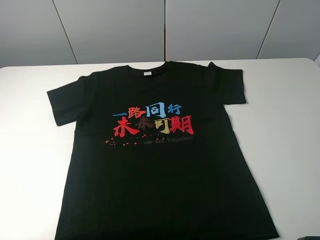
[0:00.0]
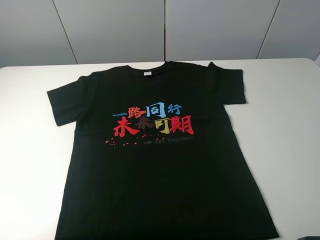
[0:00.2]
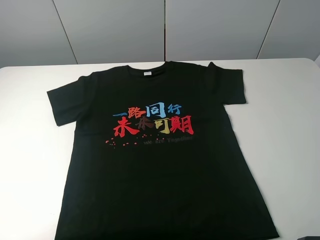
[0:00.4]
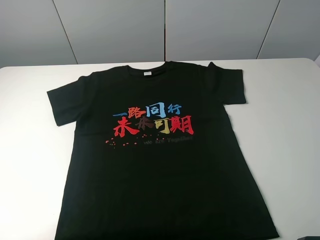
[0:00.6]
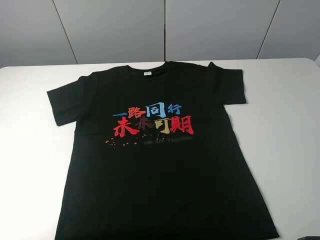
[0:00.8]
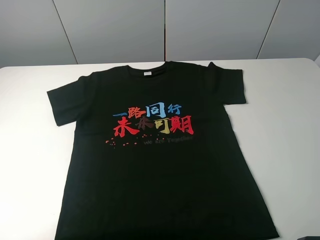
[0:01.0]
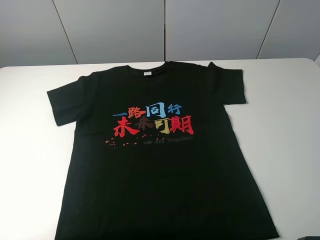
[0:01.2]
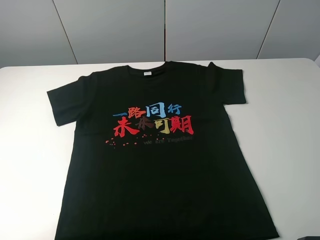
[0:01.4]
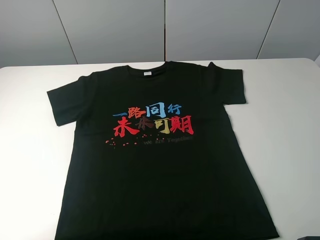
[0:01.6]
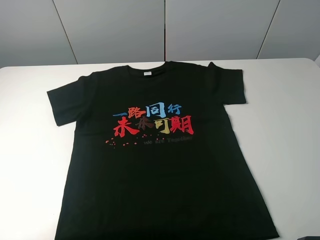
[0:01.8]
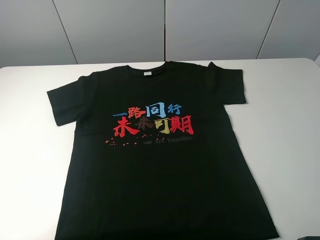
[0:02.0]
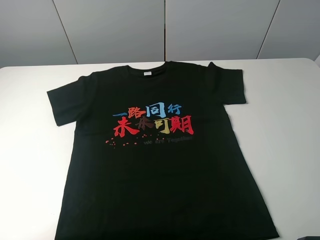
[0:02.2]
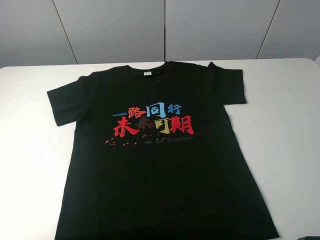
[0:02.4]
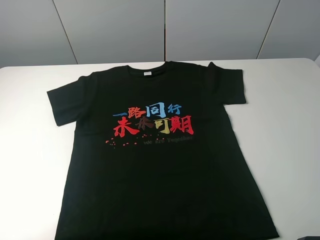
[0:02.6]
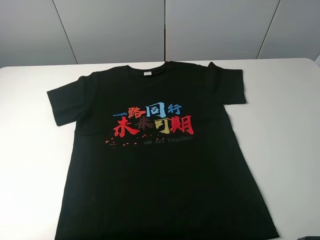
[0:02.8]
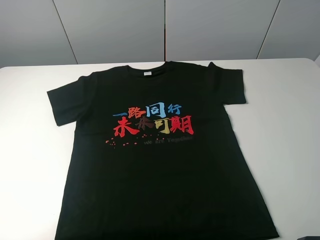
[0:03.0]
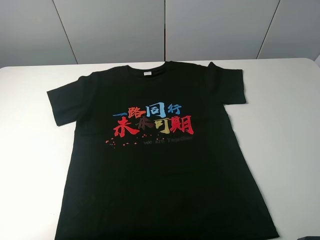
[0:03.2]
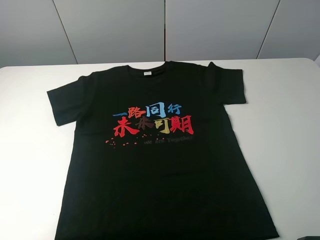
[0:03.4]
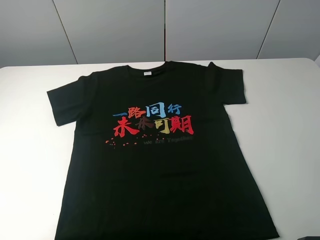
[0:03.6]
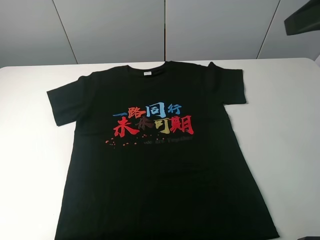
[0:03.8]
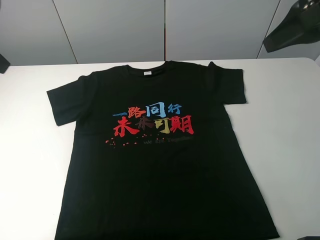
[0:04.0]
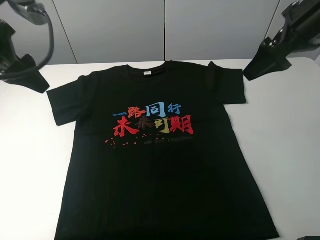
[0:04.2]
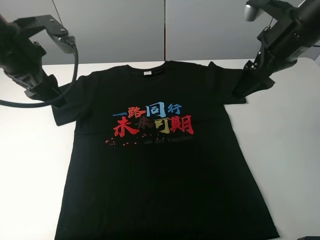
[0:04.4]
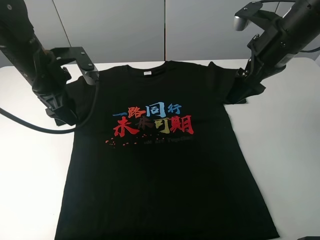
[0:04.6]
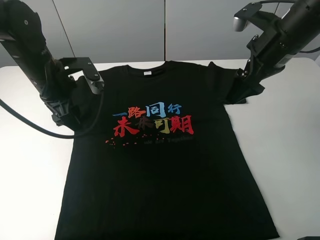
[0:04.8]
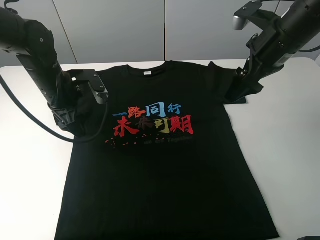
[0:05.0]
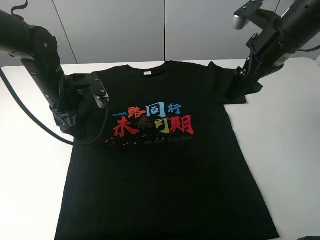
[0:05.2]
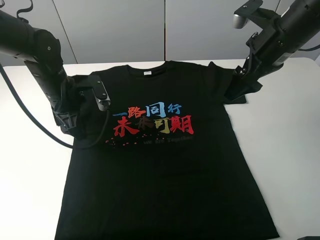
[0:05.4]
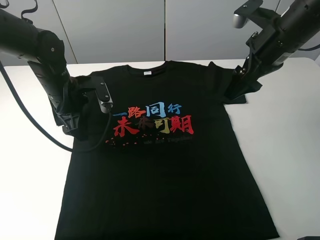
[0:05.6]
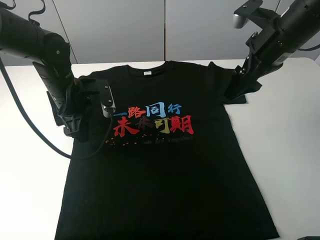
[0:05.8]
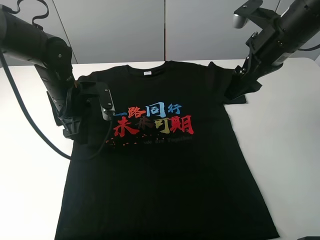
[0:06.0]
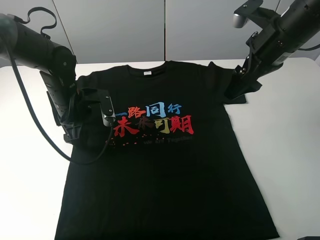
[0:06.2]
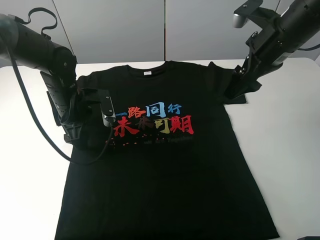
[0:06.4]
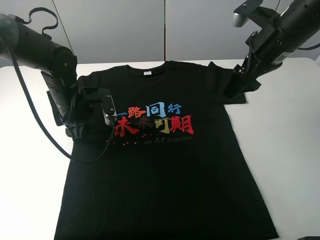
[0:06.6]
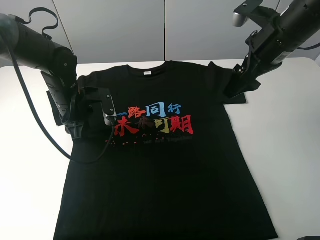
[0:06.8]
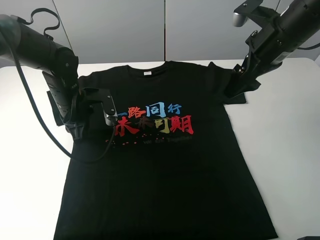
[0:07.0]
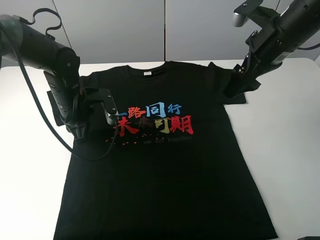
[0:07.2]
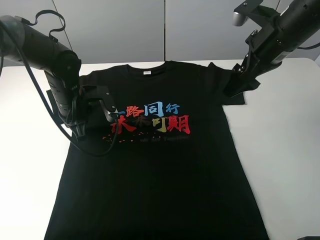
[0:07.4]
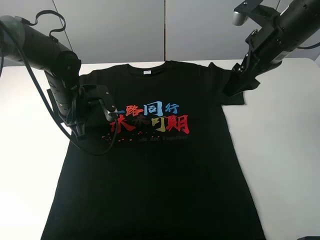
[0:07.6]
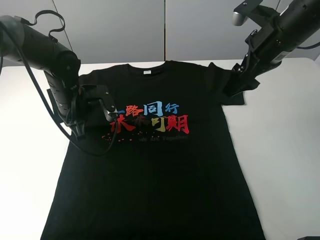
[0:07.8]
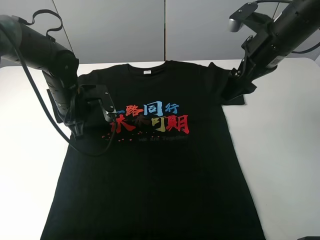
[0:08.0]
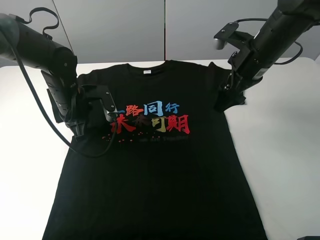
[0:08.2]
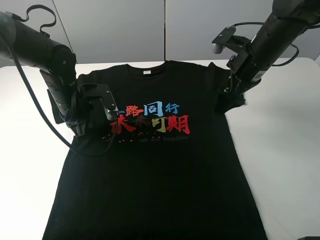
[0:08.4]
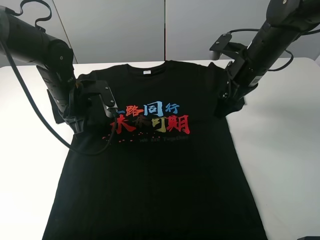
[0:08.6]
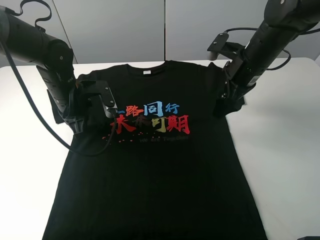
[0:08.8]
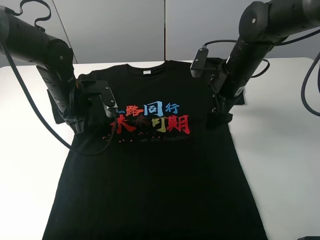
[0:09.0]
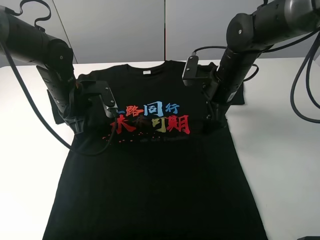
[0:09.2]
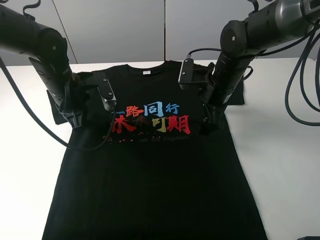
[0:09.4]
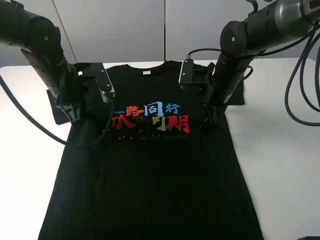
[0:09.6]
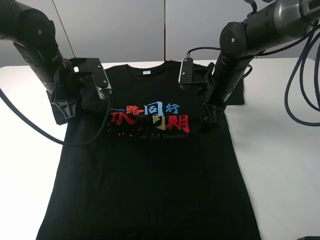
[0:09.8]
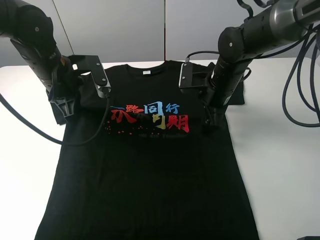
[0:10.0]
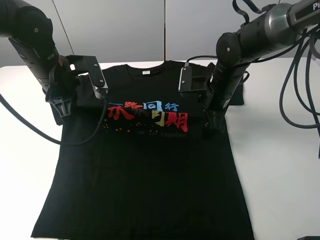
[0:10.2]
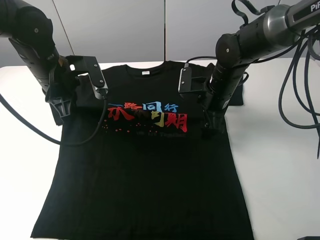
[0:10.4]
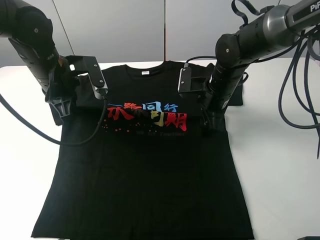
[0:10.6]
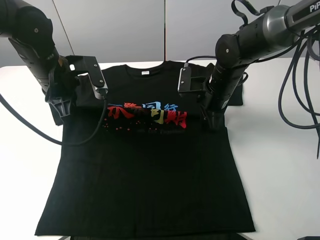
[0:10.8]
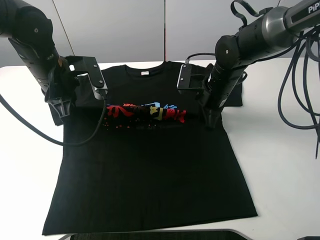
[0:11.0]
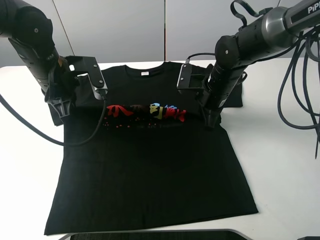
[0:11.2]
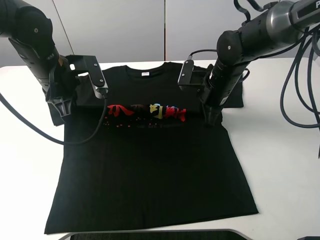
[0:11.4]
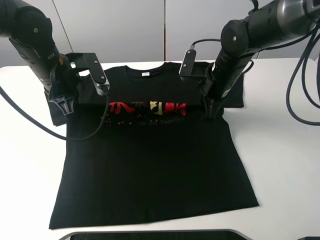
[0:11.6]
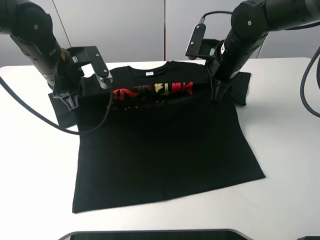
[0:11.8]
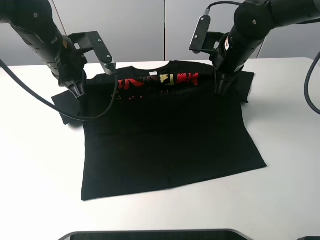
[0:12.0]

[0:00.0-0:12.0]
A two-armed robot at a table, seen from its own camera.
Task of the whole recording: fold the clothes on the table.
Step, 0:00.0 to 0:10.4: Lift the black T-shirt with the left gripper.
0:00.0 to 0:03.0: Neither gripper changes place.
0:03.0 to 0:04.4: The left gripper shifts approximately 30 cm forward and to the right, while the right gripper goes approximately 30 cm forward.
0:04.4 to 0:06.0: The left gripper travels downward by roughly 15 cm.
0:06.0 to 0:07.6: The left gripper closes.
0:07.6 to 0:09.0: The right gripper heads downward and to the left, covering some 10 cm.
0:09.0 to 0:10.4: The left gripper goes approximately 5 cm upward.
0:10.4 to 0:12.0: The right gripper goes roughly 10 cm upward, and closes up.

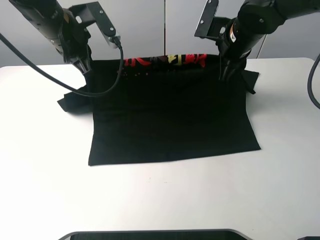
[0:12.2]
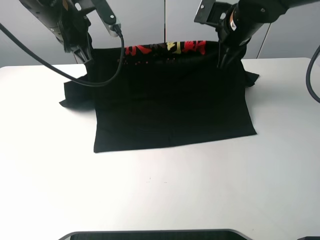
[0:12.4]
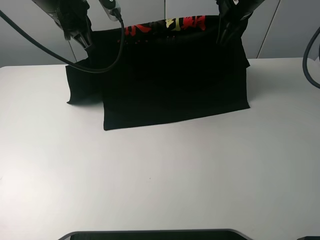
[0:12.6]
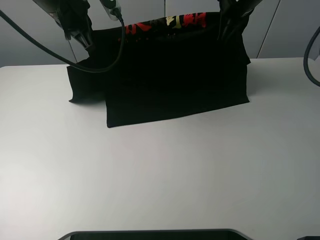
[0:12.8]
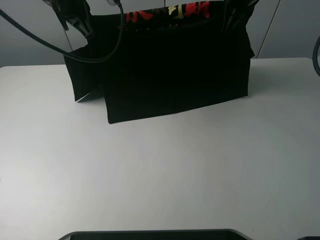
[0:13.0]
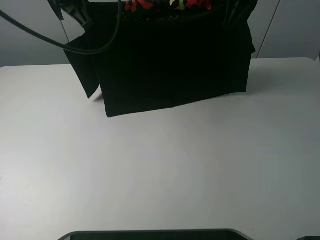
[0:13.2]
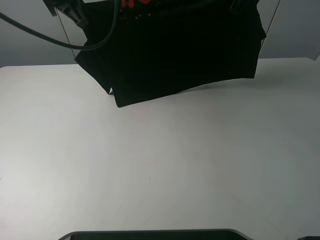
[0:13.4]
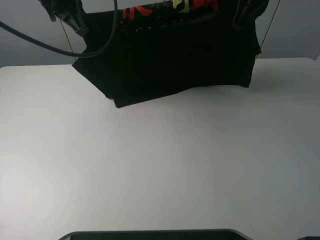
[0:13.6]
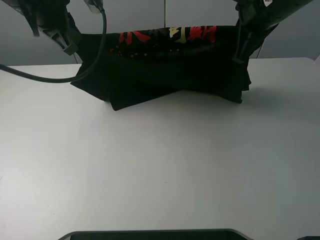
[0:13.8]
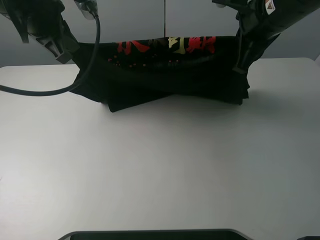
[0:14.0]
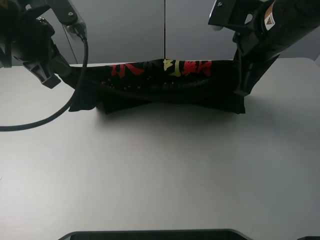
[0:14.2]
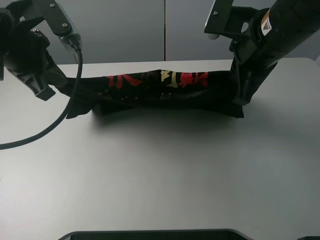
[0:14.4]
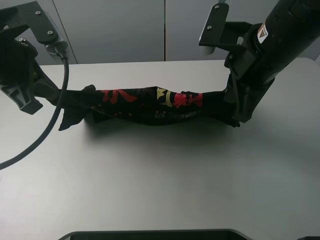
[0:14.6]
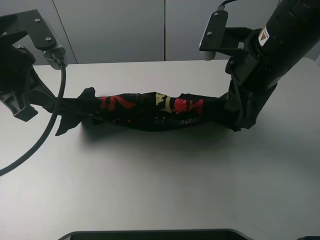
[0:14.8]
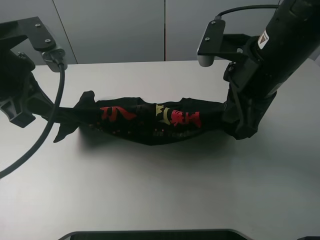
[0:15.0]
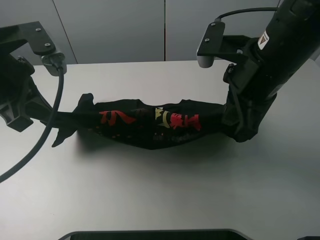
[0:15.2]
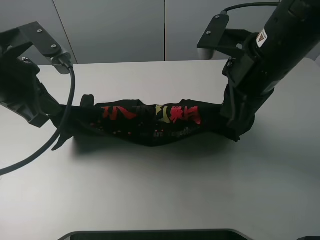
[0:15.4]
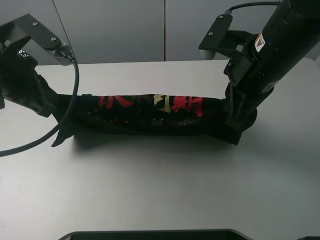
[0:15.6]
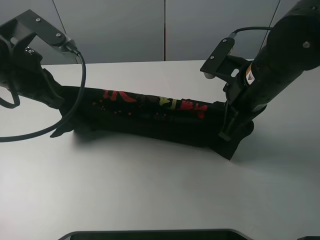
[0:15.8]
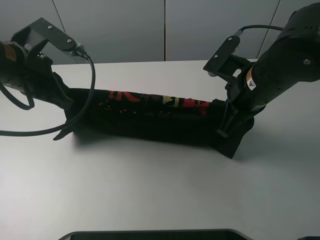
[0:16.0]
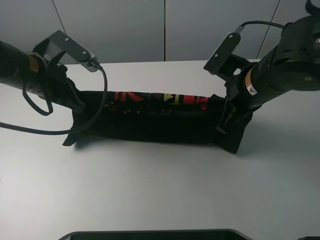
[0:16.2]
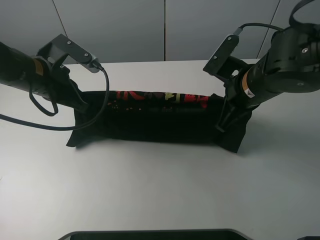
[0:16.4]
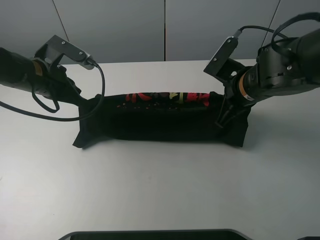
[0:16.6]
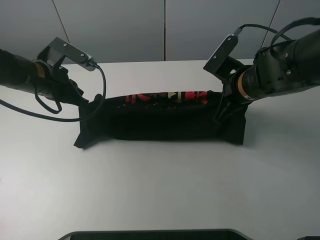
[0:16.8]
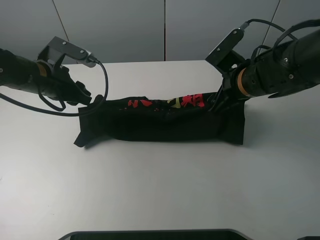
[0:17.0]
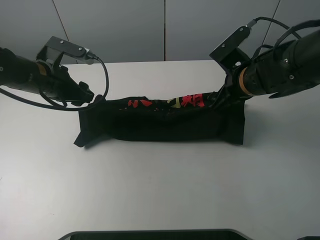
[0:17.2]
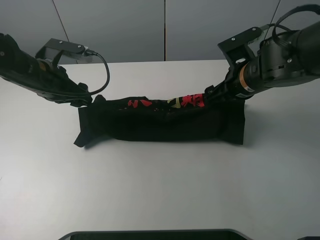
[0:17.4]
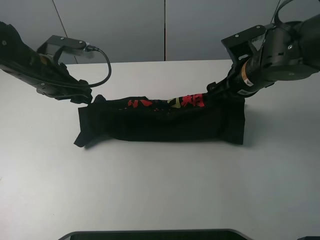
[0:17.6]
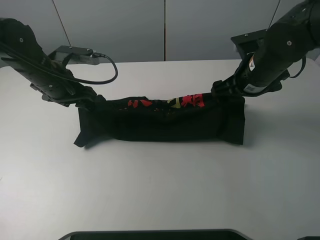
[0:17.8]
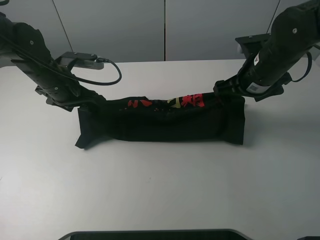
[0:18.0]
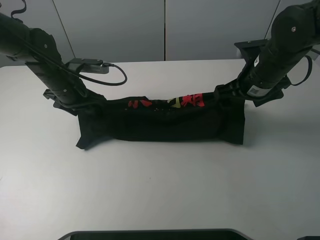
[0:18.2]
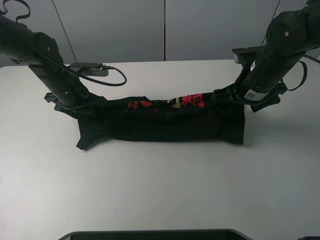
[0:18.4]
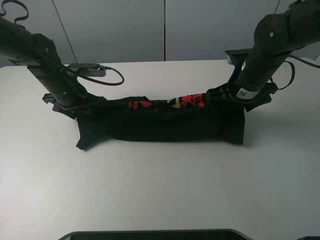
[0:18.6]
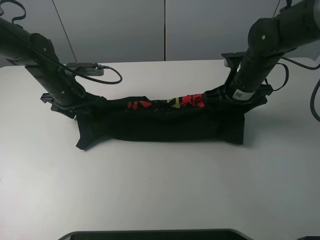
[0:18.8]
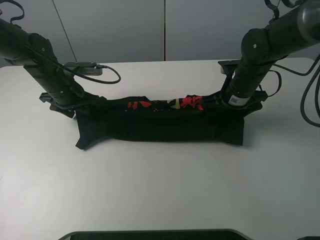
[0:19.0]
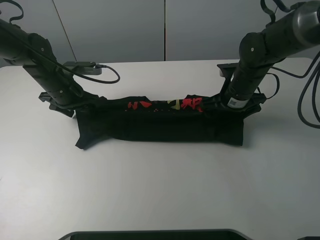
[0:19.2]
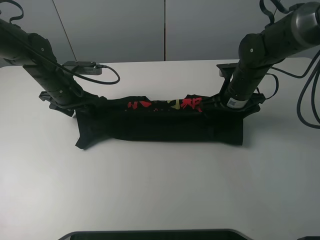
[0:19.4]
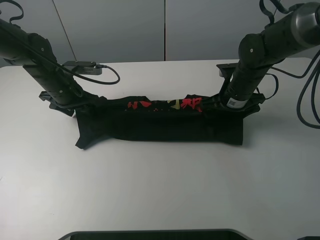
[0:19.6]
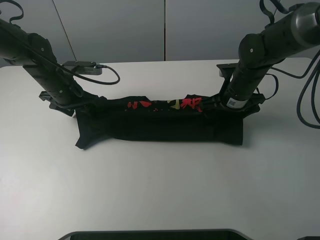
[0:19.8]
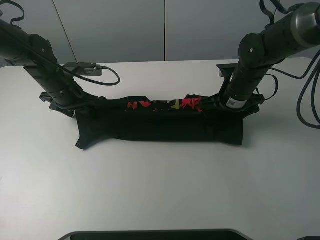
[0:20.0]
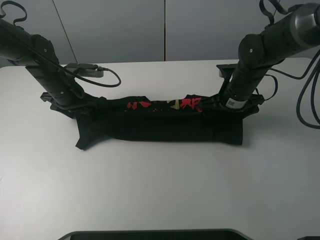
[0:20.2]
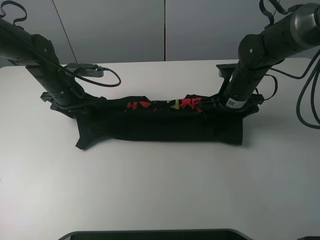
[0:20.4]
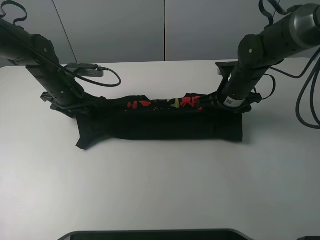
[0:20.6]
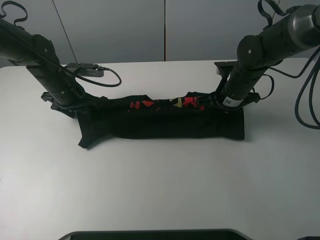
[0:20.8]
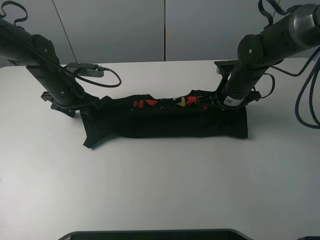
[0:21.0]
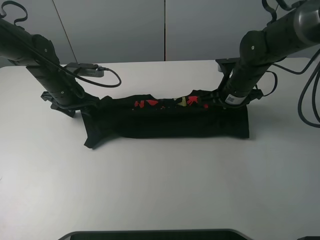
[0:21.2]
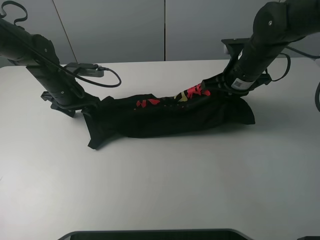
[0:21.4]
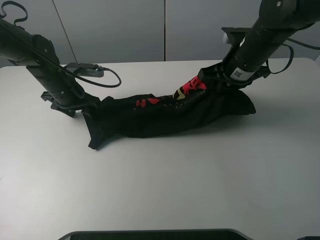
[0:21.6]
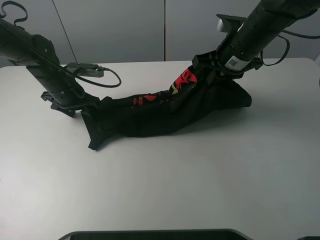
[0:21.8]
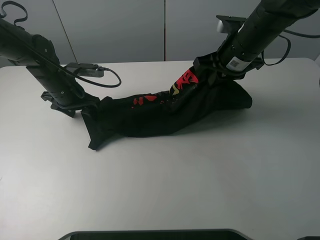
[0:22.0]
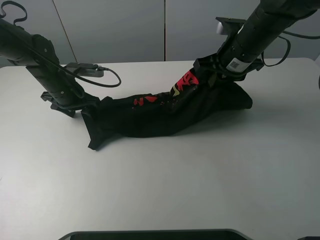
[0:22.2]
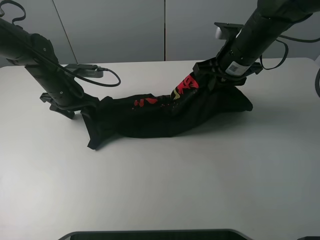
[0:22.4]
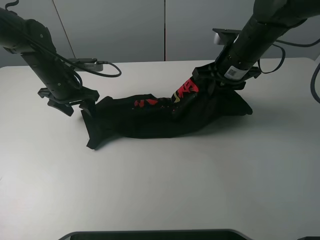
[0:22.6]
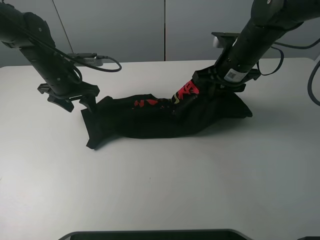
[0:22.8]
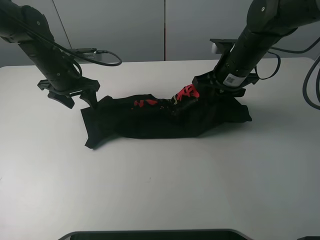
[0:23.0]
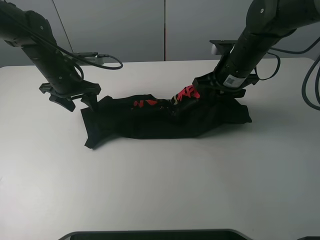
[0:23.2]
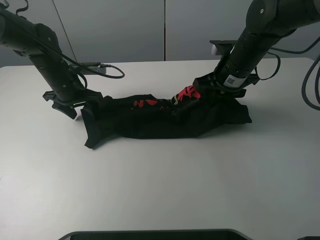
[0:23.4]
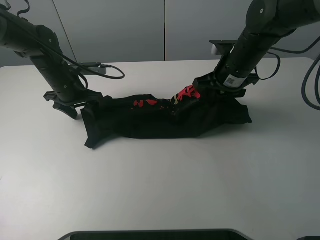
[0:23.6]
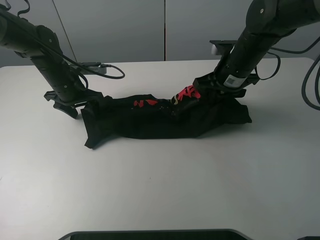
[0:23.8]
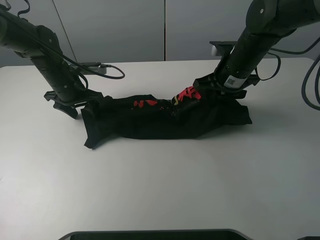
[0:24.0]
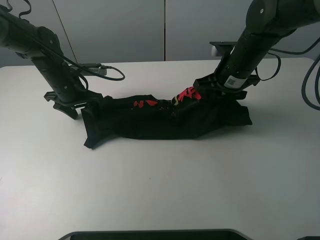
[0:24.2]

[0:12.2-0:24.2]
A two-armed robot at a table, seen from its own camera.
Task of the whole recording: fold the clothes on the table.
Step, 0:12.2 to 0:18.4: Fold the black T-shirt downward with the left gripper.
0:12.2 to 0:13.8: The left gripper moves upward, roughly 5 cm; the right gripper moves upward and backward, some 10 cm.
0:13.8 to 0:15.2: Both grippers travel together backward, approximately 10 cm.
0:15.2 to 0:16.6: Both grippers move downward and forward, approximately 15 cm.
0:16.6 to 0:18.2: The left gripper changes place by roughly 5 cm, and opens, while the right gripper opens up.
0:18.2 to 0:19.8: The right gripper shifts approximately 5 cm downward.
0:19.8 to 0:21.2: The right gripper closes.
0:21.2 to 0:22.6: The right gripper moves upward, roughly 5 cm.
0:22.6 to 0:24.2: The grippers stay close to where they were, moving slightly.
